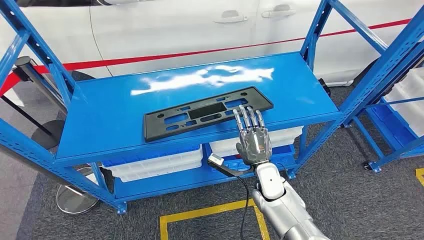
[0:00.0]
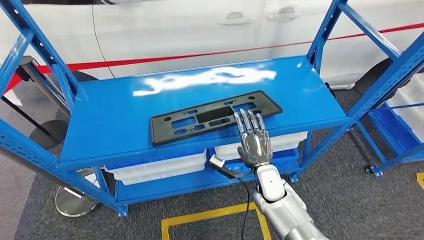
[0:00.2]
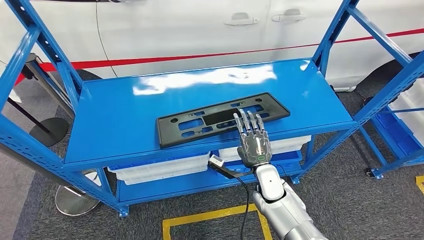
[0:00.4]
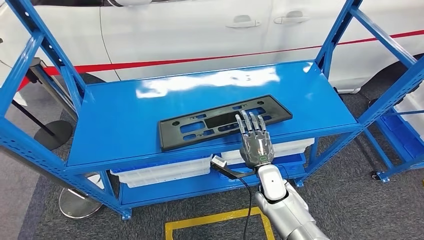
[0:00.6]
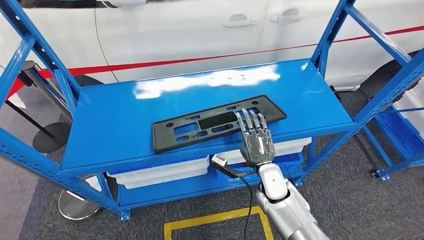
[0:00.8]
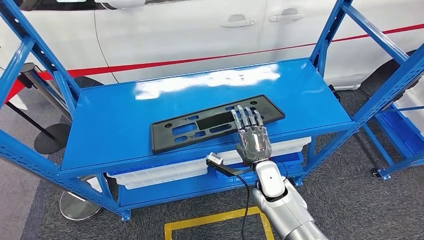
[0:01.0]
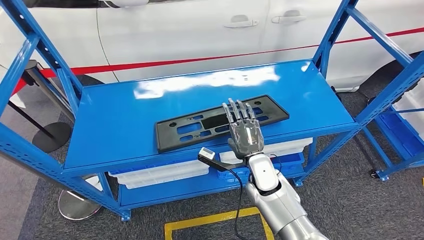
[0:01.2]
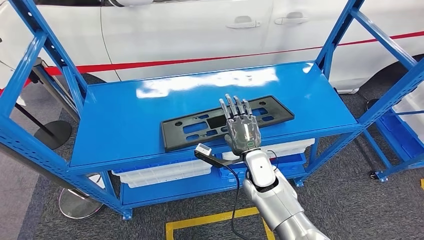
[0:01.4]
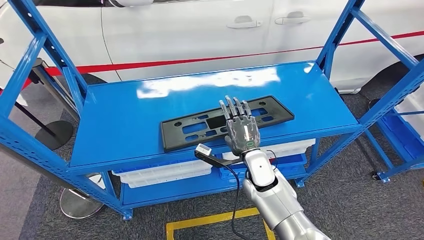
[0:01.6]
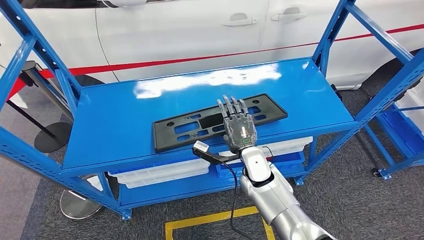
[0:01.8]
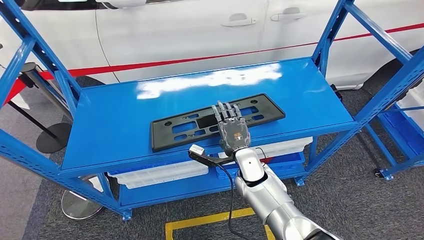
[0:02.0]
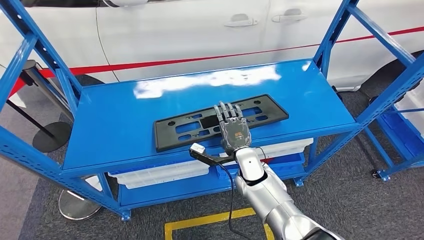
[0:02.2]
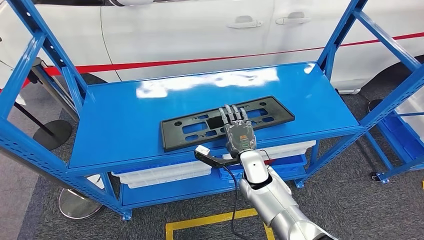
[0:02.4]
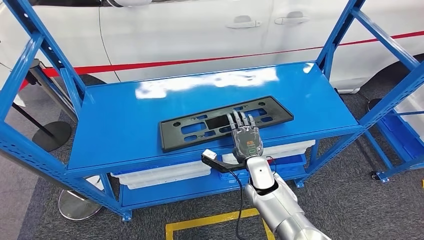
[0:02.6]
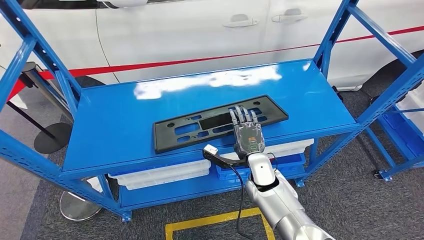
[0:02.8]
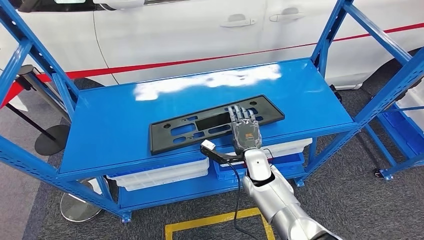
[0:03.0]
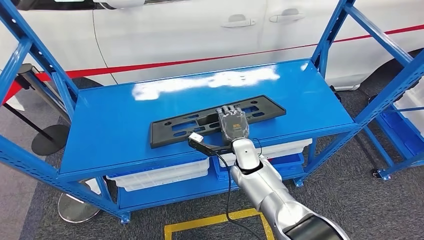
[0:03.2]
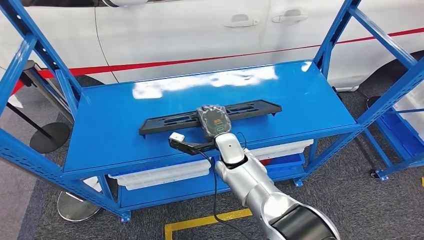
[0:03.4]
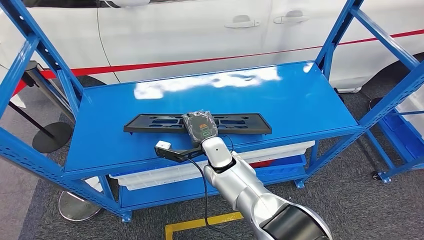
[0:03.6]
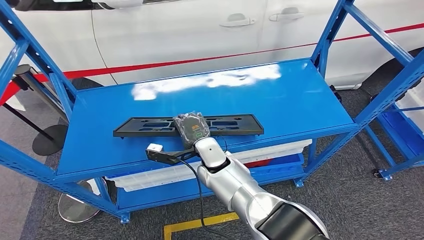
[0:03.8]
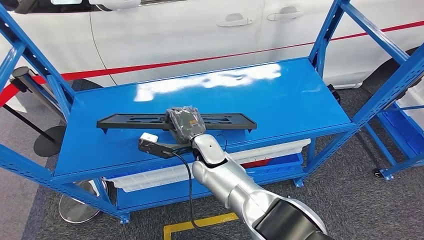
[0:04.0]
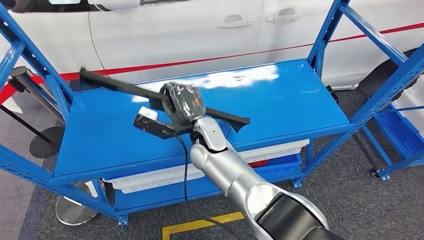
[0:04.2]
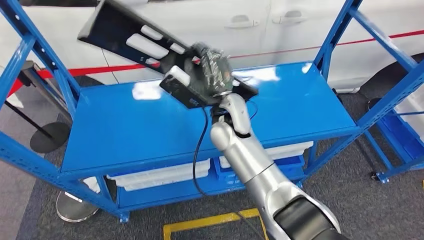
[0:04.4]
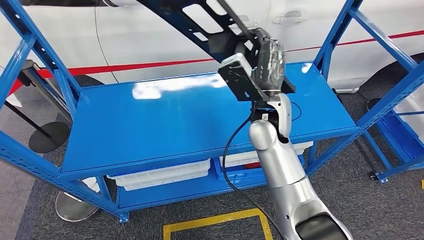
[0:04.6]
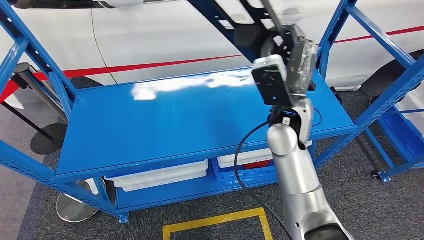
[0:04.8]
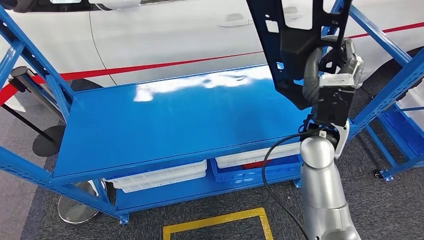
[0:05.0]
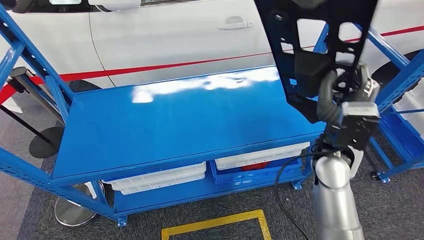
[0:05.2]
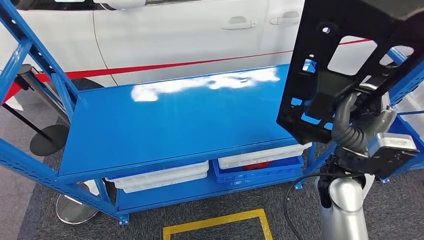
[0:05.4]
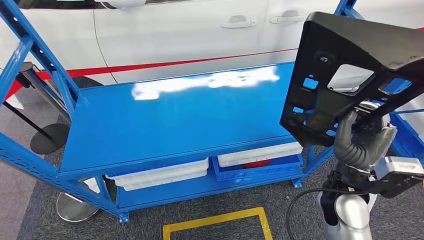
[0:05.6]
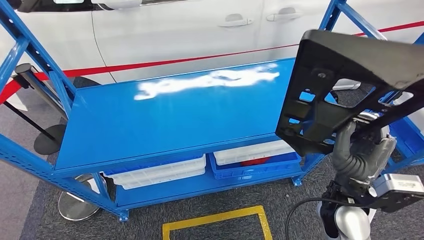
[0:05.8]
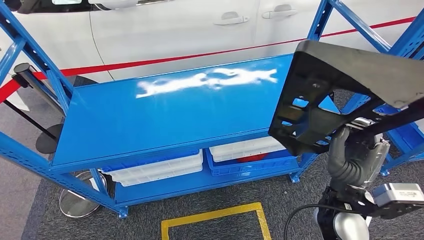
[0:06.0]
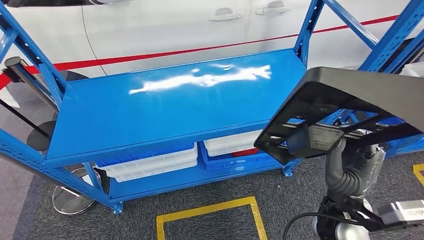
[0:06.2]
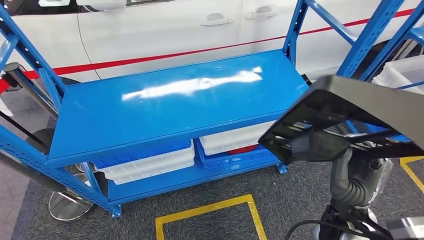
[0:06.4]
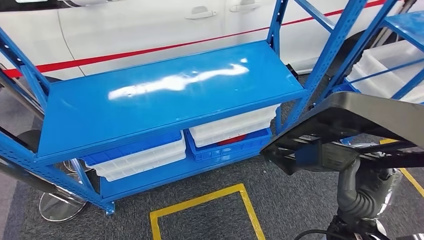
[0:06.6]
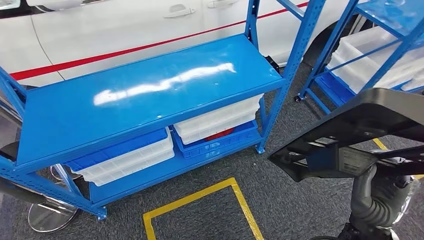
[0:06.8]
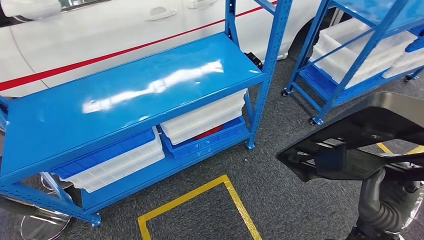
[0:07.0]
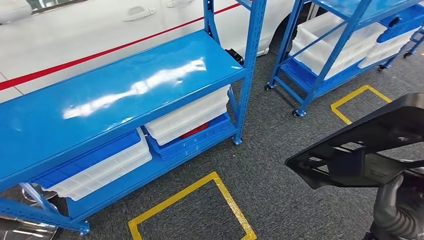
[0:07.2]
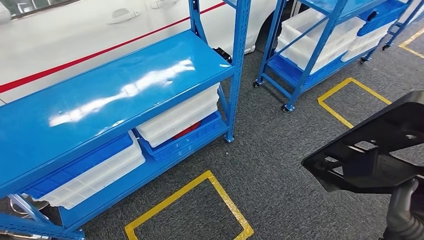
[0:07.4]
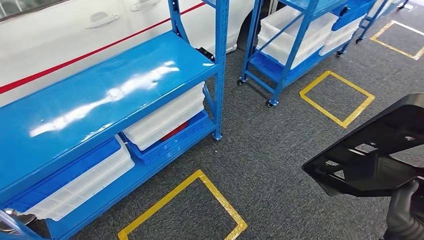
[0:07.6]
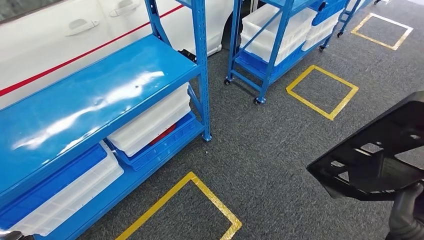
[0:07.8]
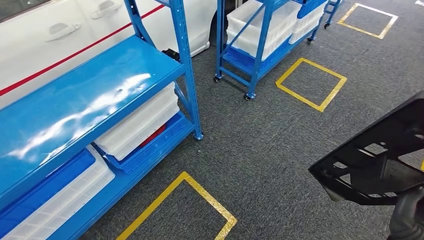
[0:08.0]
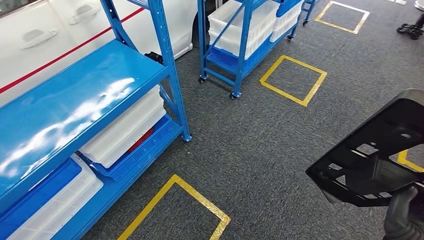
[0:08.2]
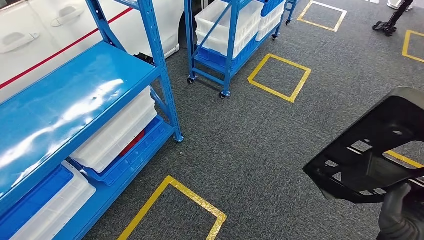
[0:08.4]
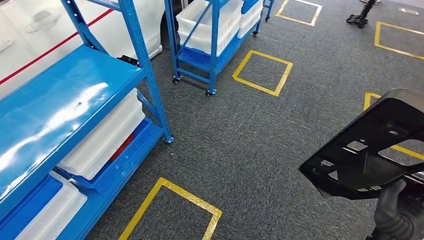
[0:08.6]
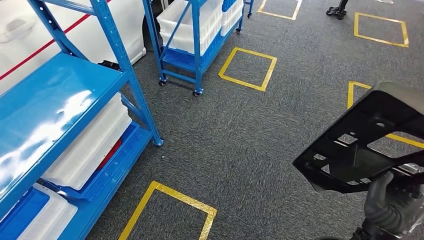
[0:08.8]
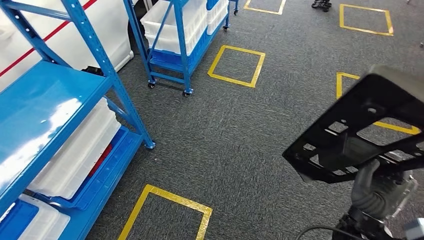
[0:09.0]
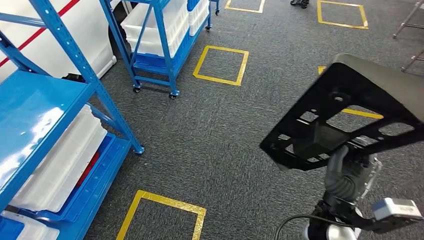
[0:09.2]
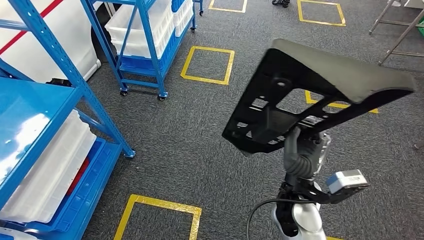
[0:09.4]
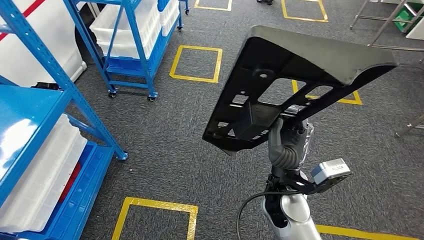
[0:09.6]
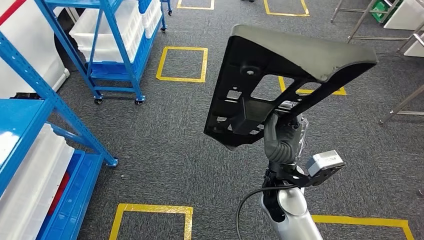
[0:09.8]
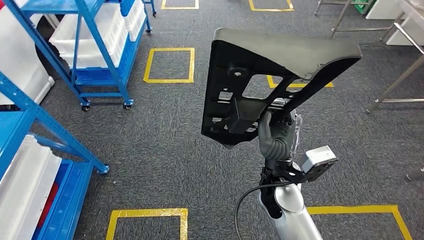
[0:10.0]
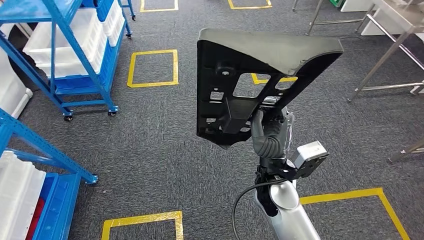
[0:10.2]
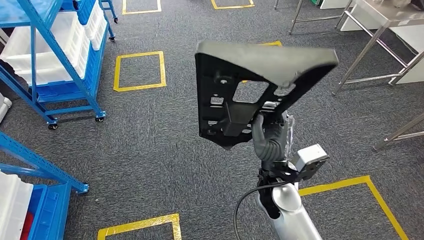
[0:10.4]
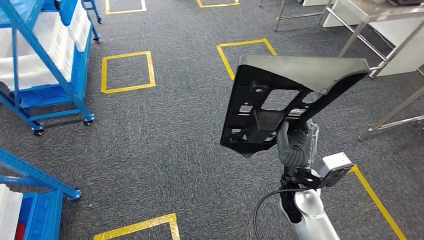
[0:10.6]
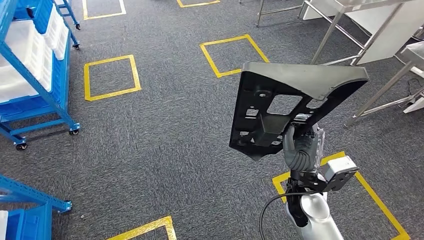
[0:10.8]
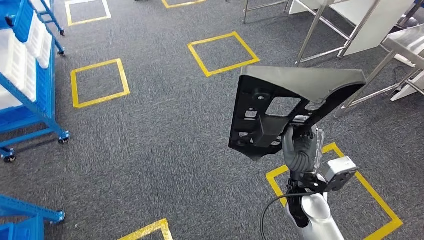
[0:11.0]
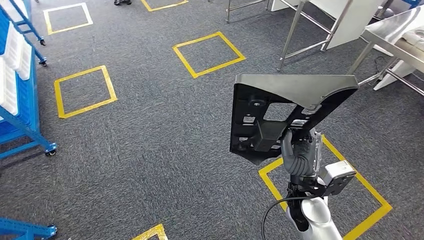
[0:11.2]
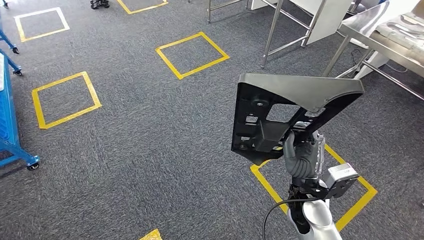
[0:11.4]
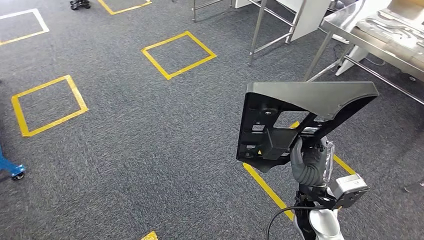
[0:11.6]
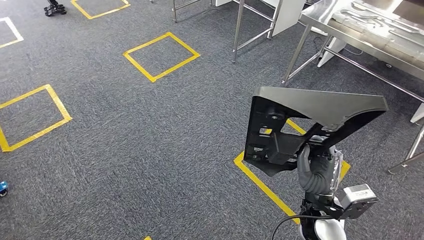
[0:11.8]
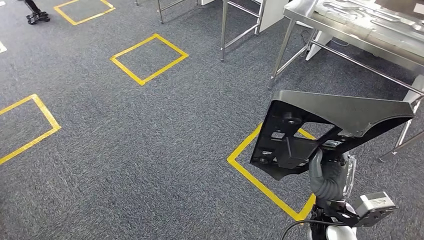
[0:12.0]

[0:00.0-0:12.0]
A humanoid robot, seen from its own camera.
Step, 0:00.0 to 0:04.6: Pick up the large material from the shelf.

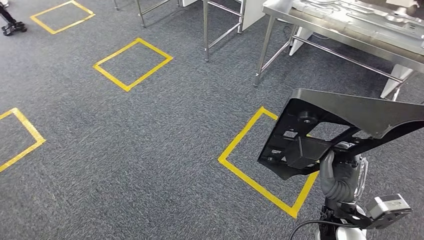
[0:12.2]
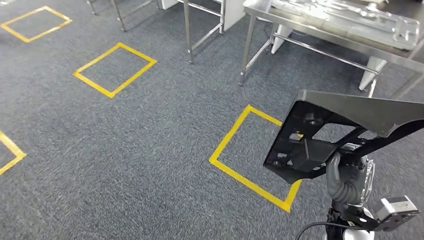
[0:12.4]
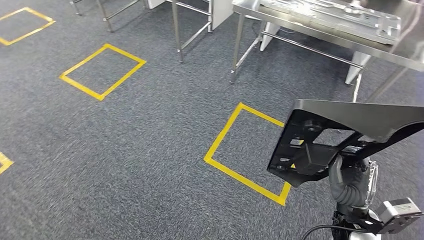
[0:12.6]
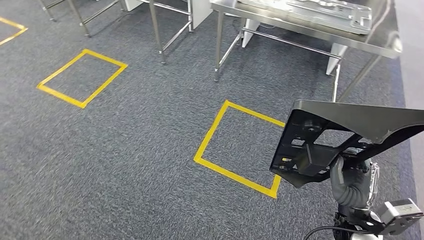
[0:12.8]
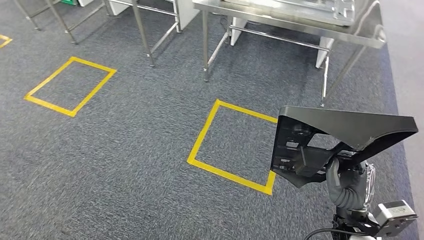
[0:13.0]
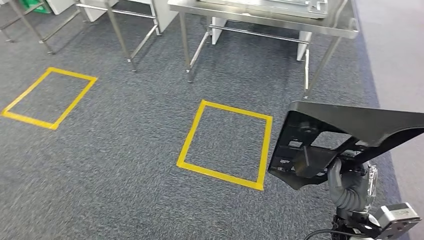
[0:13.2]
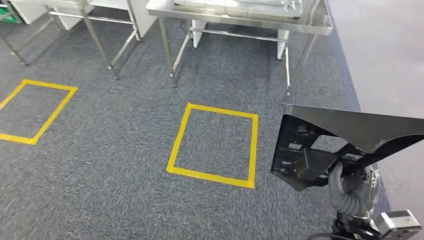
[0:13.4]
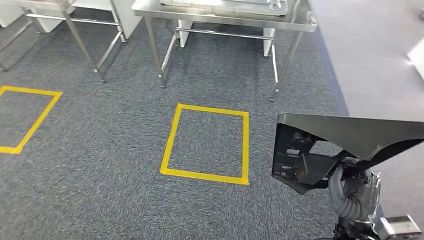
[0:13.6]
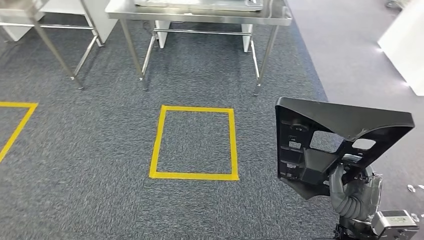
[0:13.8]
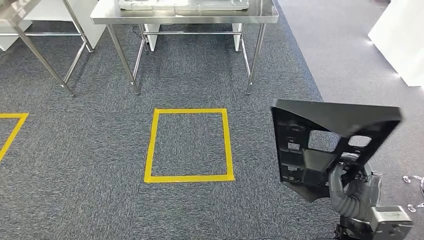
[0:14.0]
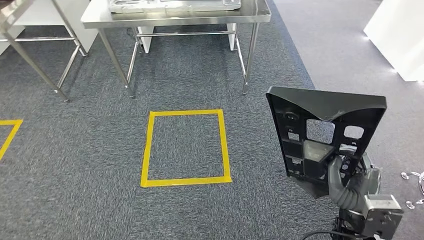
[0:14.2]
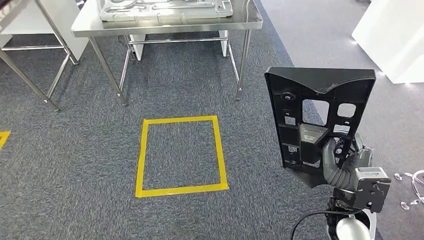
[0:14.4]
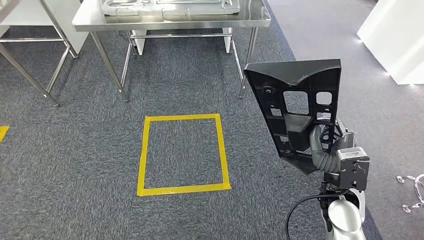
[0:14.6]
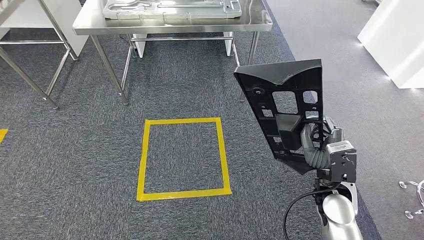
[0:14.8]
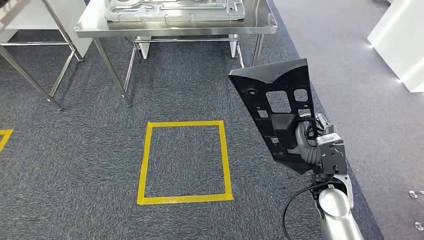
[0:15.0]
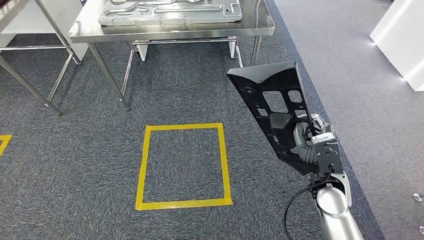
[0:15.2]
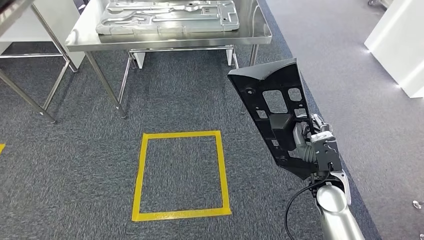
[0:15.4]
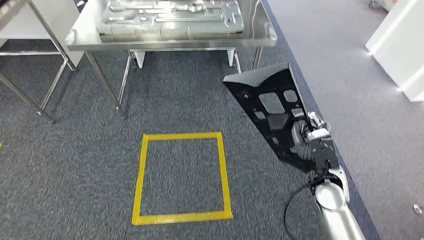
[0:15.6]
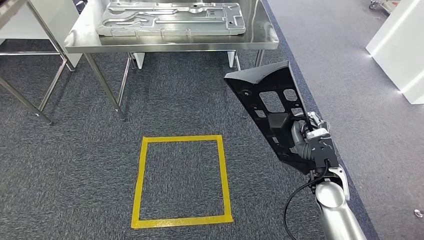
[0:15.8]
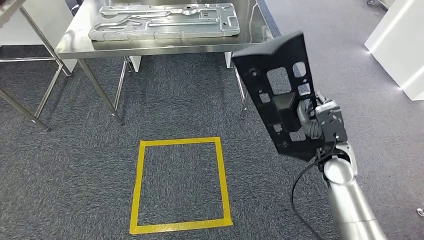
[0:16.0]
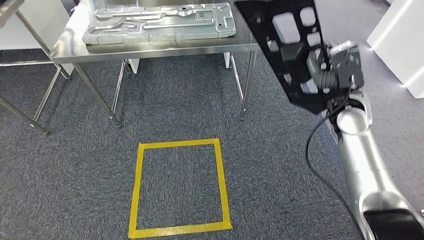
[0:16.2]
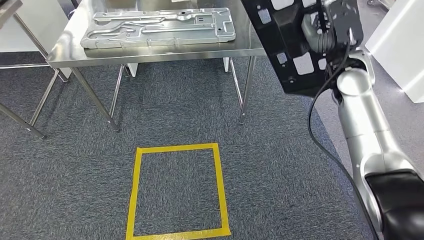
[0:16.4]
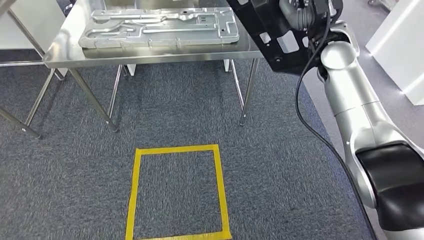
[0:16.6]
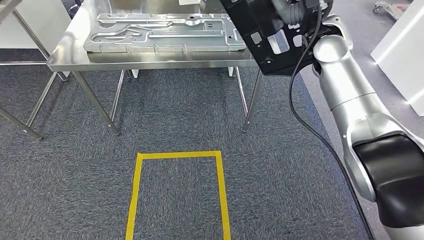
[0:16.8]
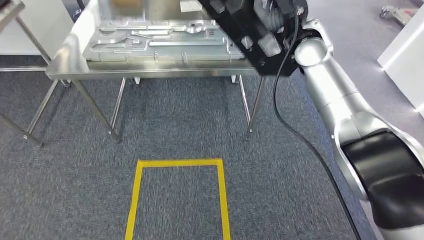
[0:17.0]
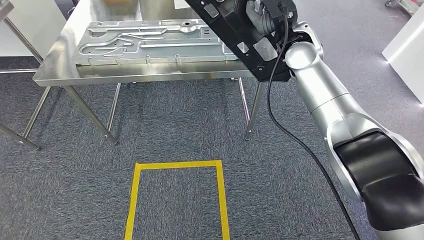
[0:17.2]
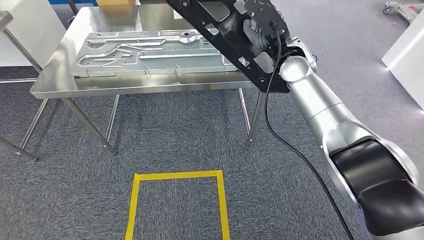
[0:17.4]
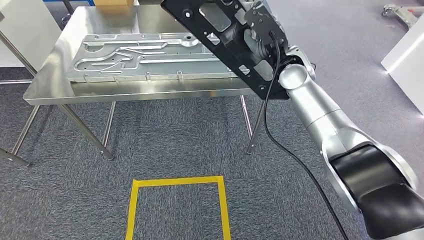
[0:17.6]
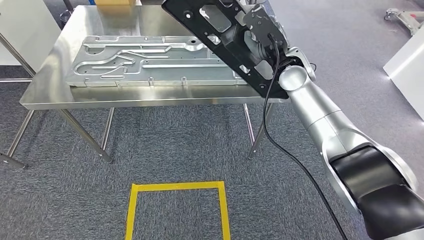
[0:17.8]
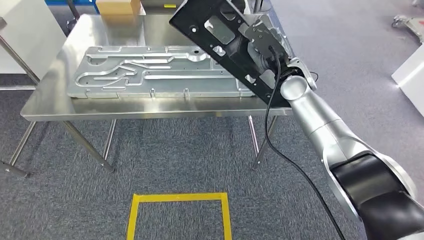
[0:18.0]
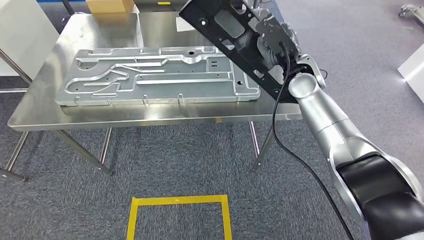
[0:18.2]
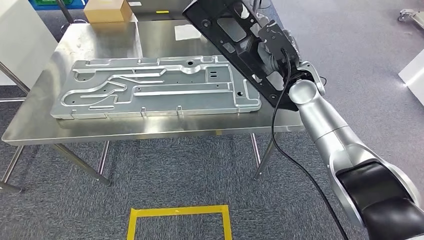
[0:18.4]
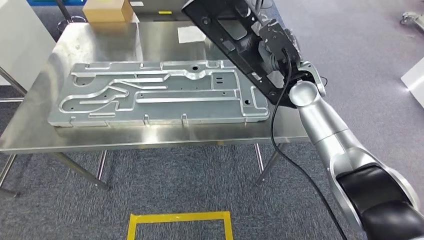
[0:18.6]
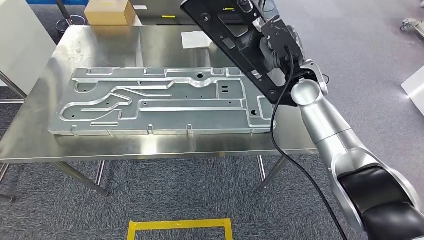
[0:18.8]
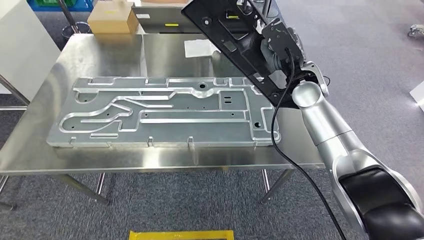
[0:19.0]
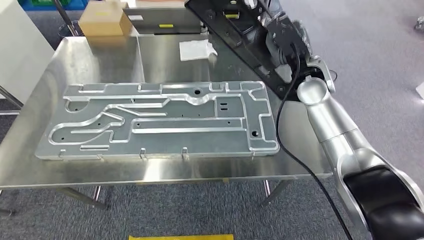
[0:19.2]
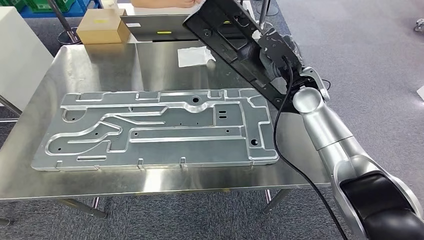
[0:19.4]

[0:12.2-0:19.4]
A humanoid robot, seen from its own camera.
Step, 0:12.2 to 0:17.2: Move the large material to the workbench.
